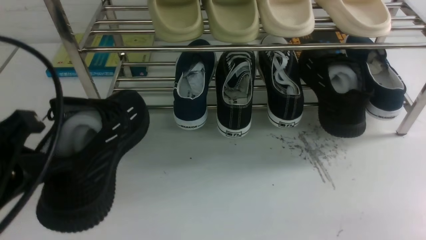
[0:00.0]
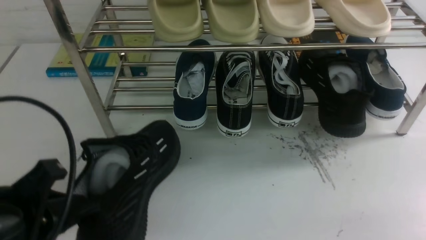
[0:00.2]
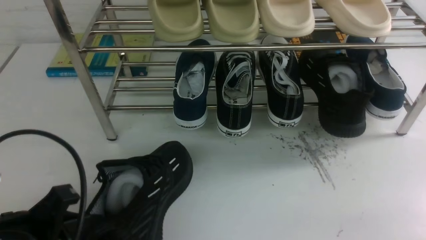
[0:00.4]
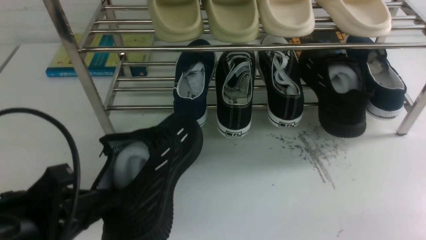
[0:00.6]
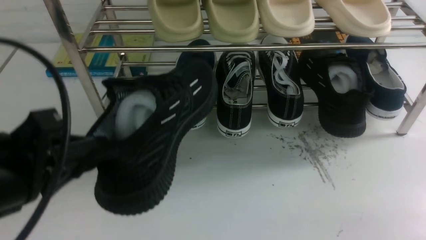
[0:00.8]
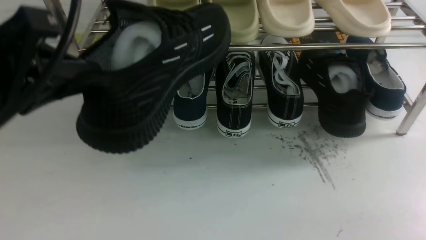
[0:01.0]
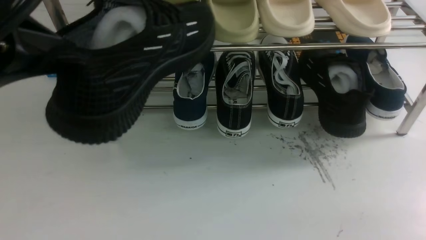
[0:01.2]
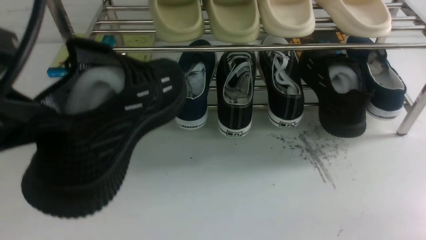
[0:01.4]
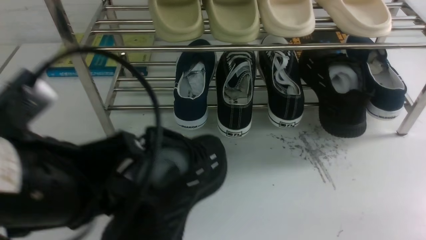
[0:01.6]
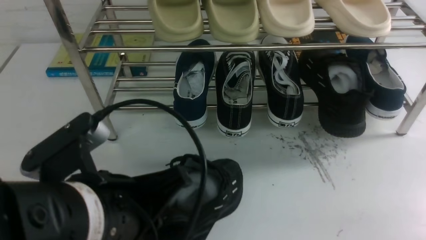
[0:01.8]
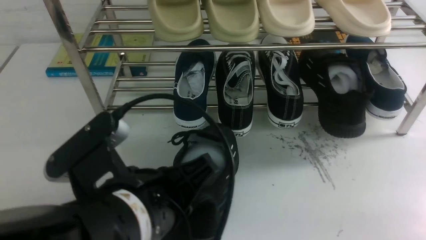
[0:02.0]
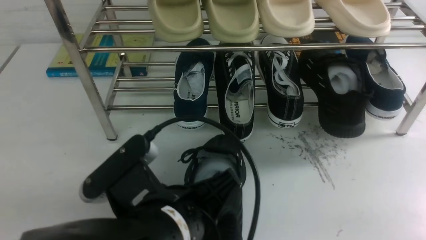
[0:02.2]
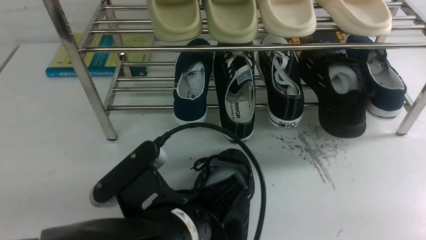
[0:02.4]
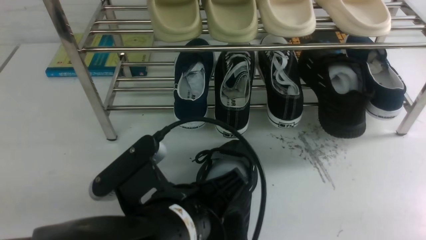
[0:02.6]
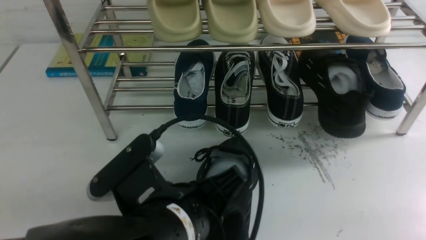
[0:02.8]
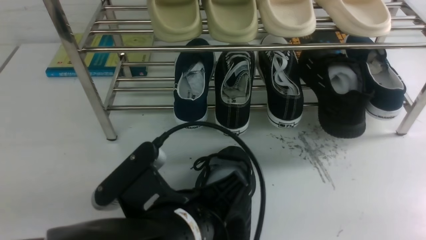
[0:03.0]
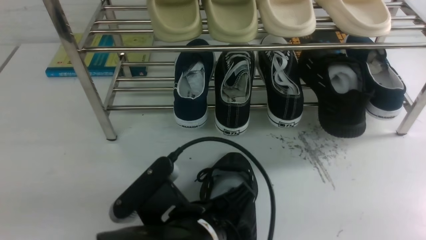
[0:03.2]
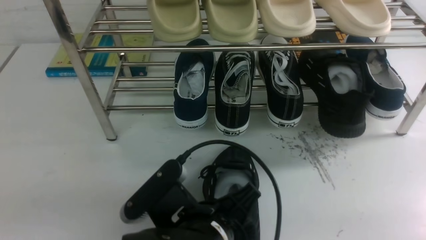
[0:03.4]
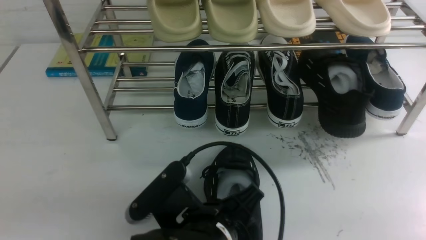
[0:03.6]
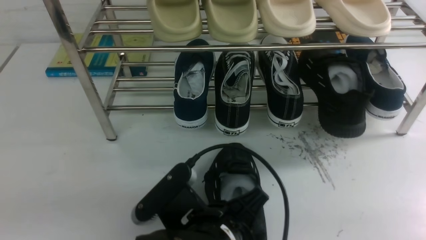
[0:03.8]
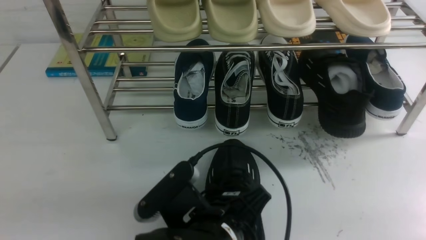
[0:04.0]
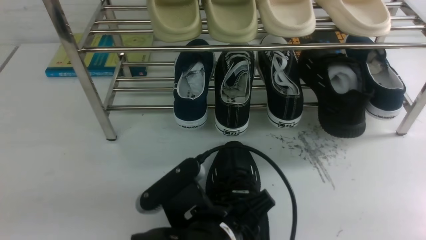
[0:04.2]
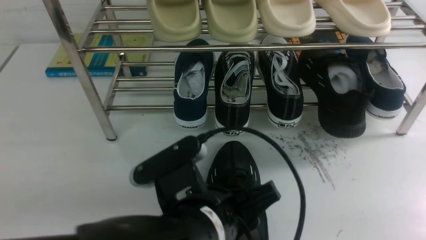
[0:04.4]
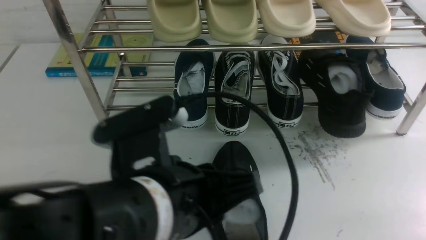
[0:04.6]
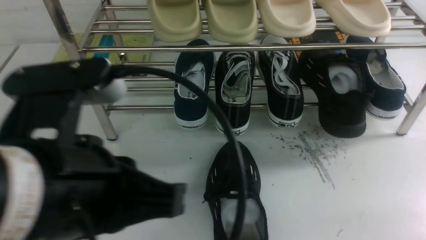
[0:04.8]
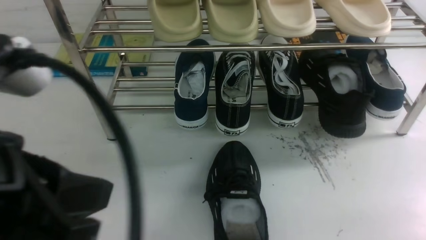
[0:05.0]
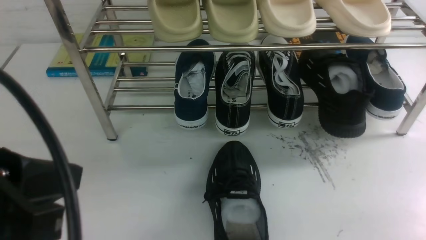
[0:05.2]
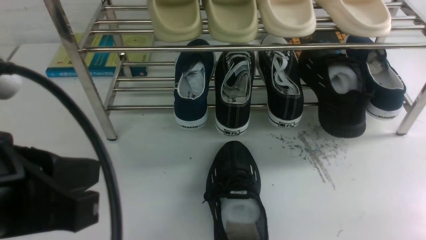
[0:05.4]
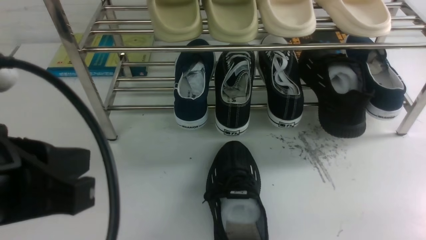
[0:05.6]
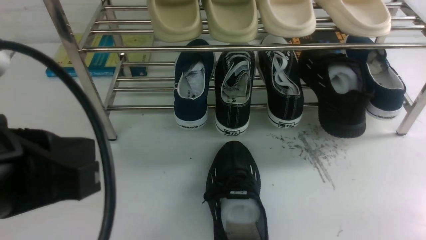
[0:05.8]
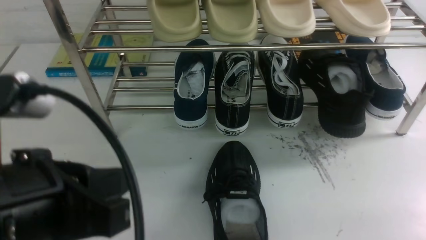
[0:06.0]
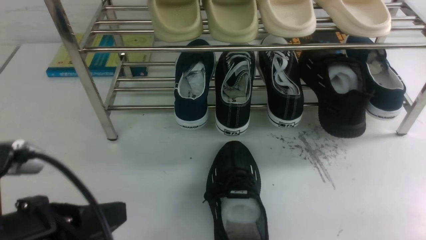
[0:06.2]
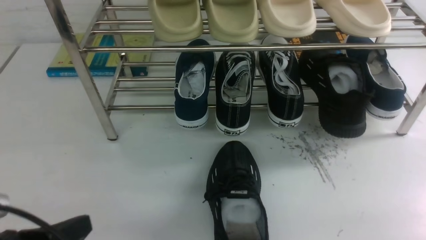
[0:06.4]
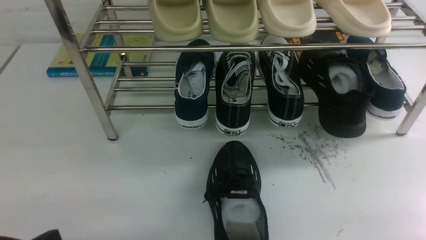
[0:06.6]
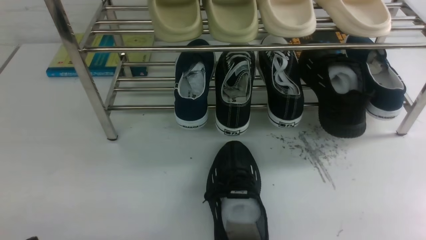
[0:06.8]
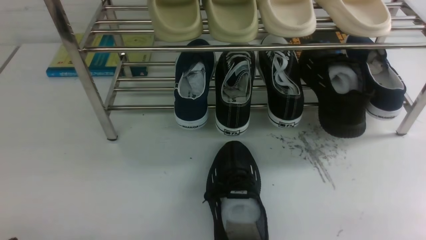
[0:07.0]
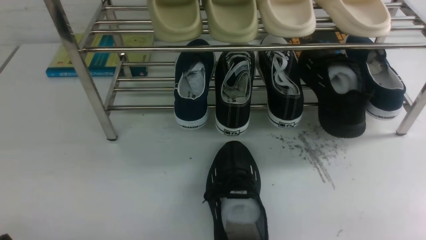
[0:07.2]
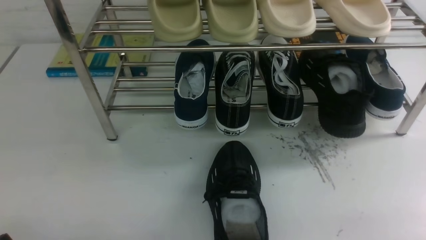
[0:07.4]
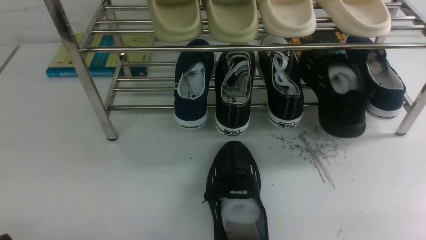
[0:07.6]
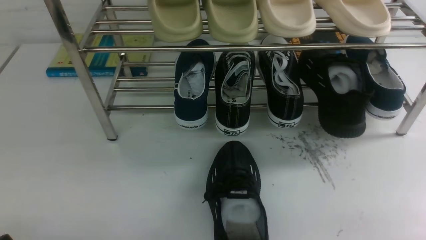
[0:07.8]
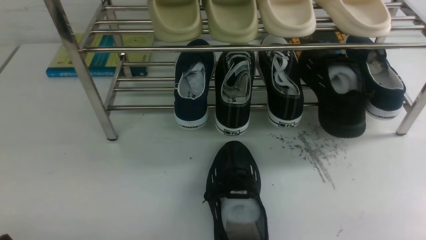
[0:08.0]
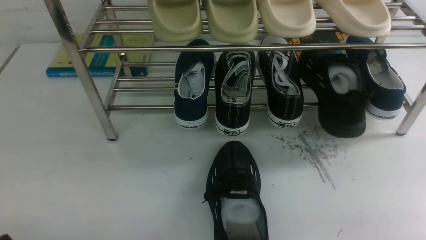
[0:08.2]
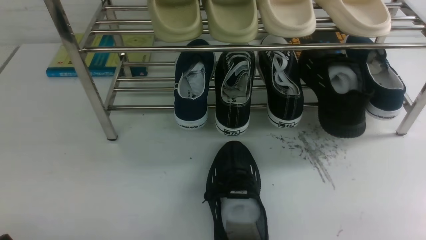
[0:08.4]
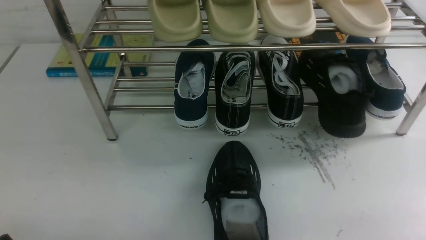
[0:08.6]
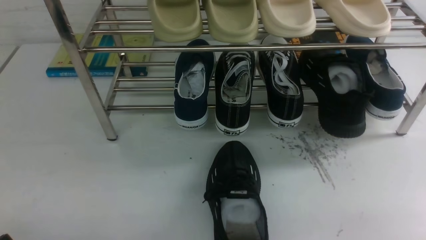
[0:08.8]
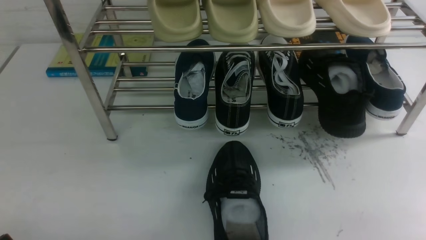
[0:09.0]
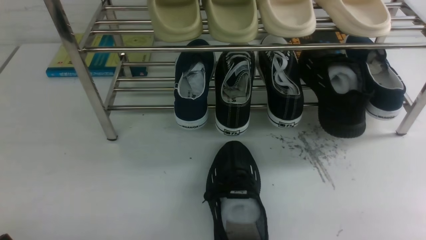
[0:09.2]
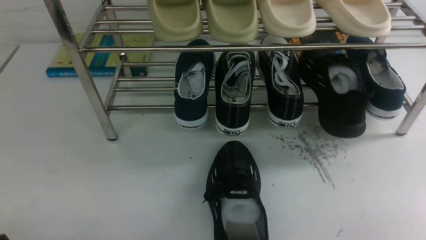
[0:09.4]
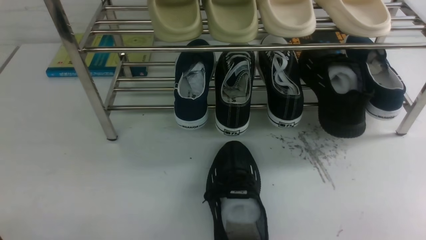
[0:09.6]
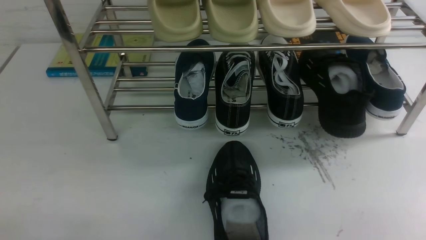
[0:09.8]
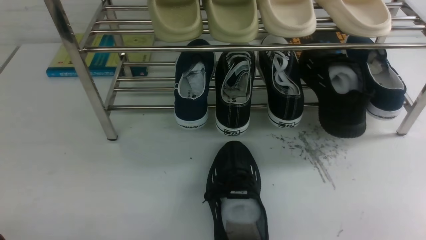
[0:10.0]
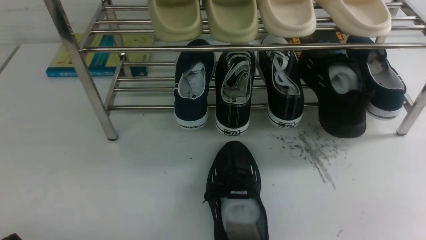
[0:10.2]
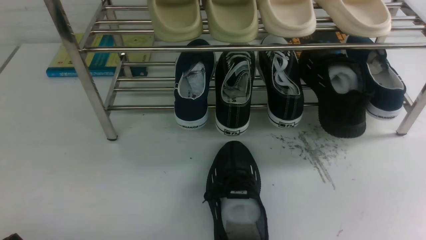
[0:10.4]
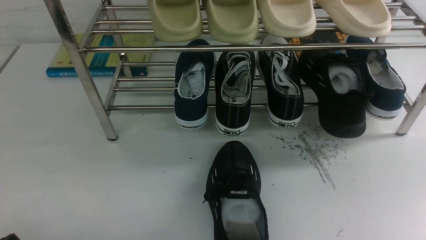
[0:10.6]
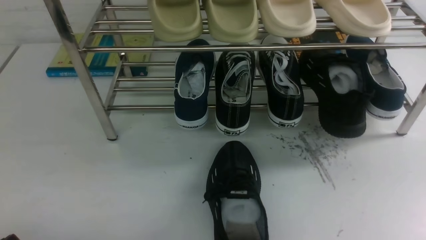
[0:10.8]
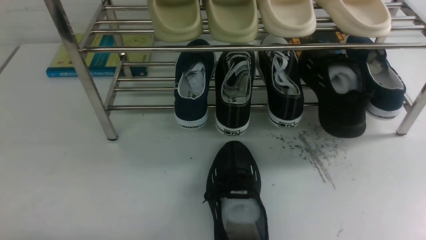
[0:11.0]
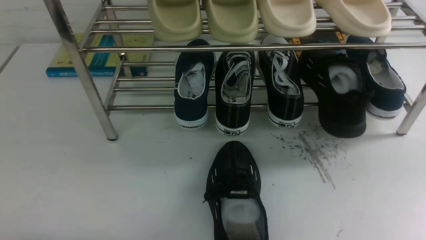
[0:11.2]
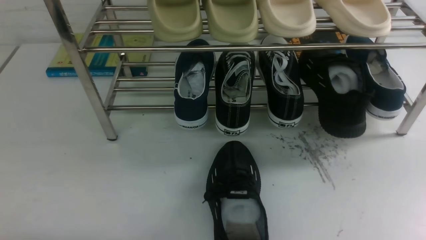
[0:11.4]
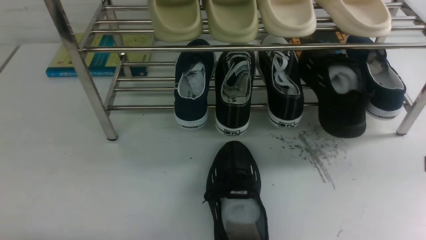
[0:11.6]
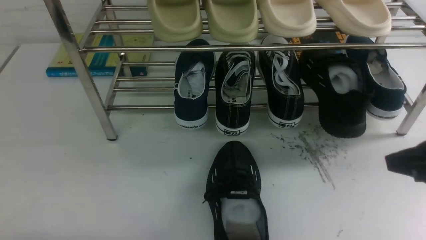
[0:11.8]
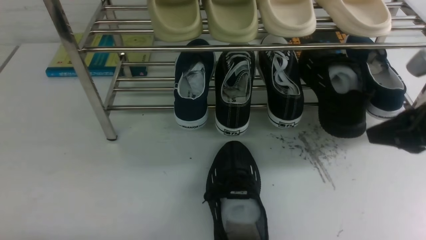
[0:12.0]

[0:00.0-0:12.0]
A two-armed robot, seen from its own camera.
Step, 0:00.0 to 0:04.4: Use your left arm to remove the clamped shoe from the shoe rack and put it down.
0:00.0 to 0:01.6: The left gripper swings up and down, about 15 cm each way, with 2 reversals.
0:01.6 to 0:03.0: The left gripper moves to the right and downward, about 15 cm.
0:03.0 to 0:04.4: The left gripper opens its fingers.
0:04.4 to 0:06.0: The left gripper goes about 15 cm to the left and upward, and closes up.
0:06.0 to 0:07.6: The left gripper shifts approximately 20 cm downward and to the left.
0:07.6 to 0:09.0: Neither gripper changes place.
0:10.4 to 0:12.0: The right gripper travels forward by some 15 cm.

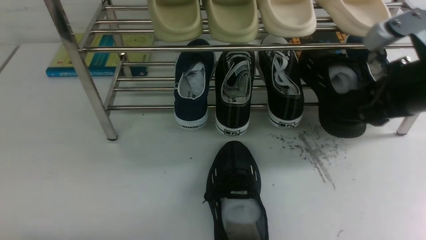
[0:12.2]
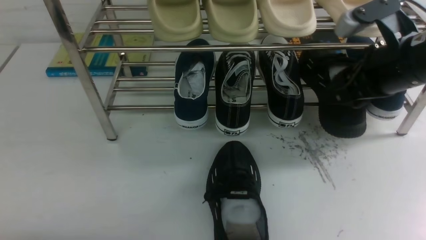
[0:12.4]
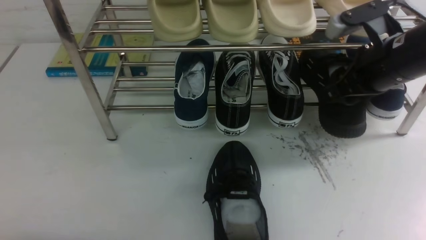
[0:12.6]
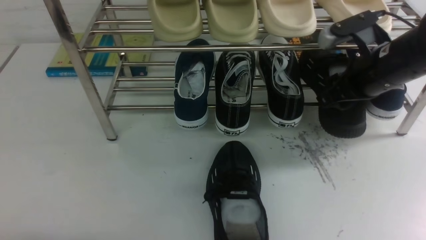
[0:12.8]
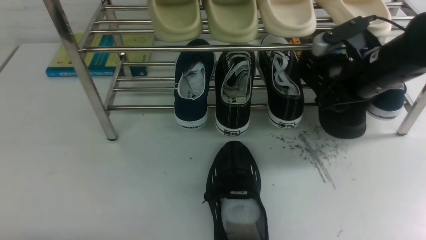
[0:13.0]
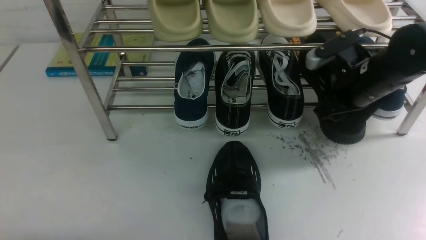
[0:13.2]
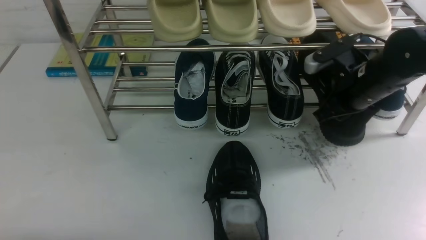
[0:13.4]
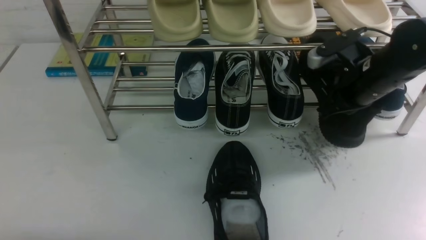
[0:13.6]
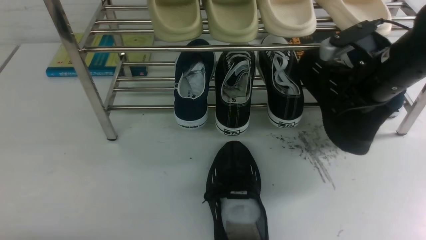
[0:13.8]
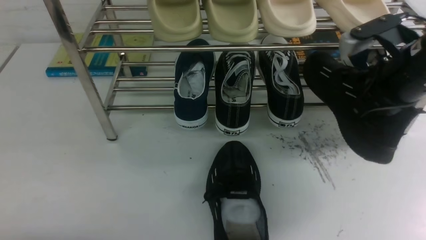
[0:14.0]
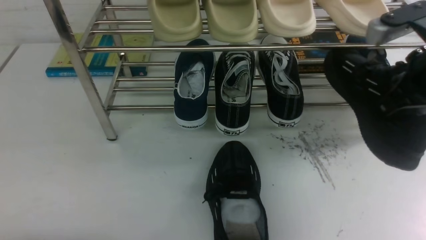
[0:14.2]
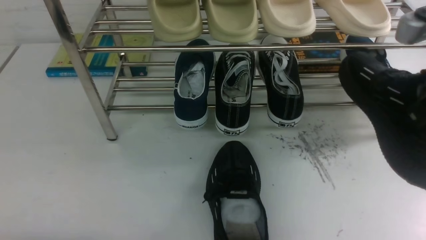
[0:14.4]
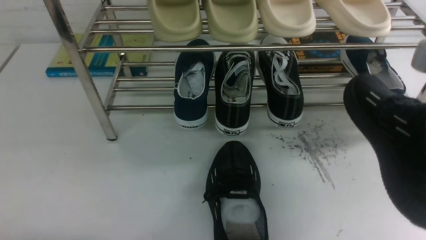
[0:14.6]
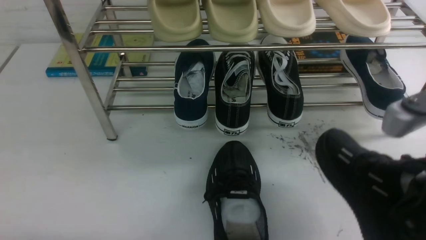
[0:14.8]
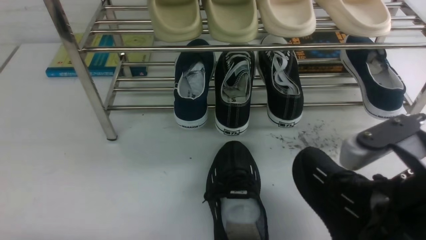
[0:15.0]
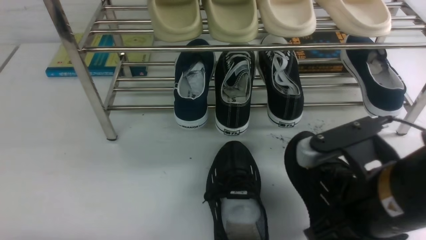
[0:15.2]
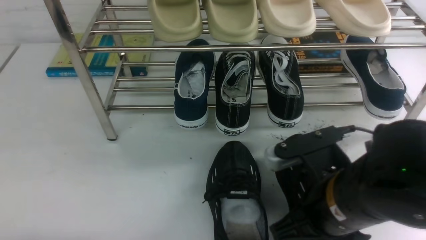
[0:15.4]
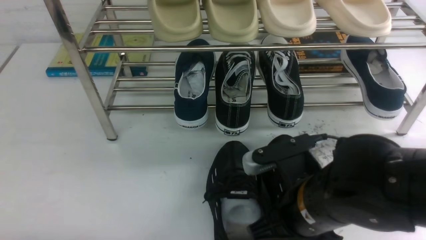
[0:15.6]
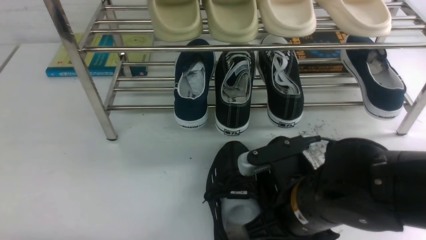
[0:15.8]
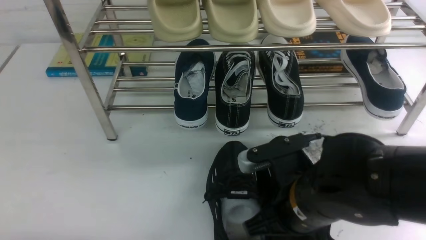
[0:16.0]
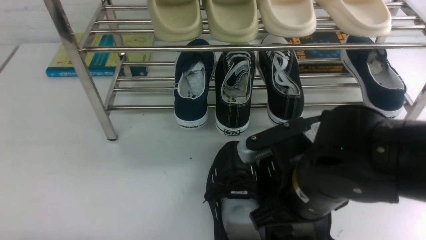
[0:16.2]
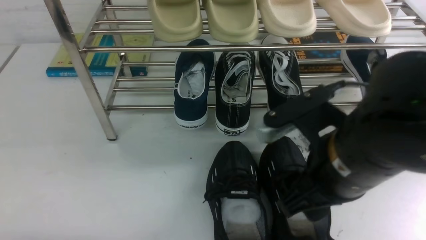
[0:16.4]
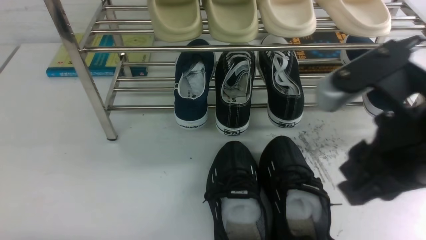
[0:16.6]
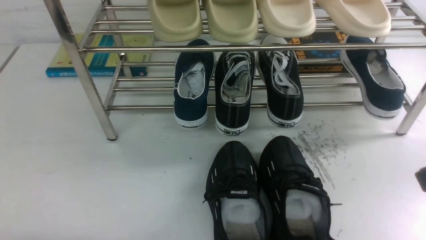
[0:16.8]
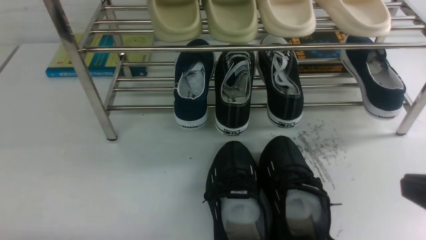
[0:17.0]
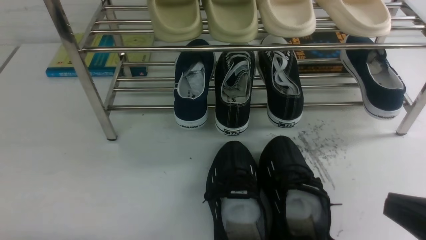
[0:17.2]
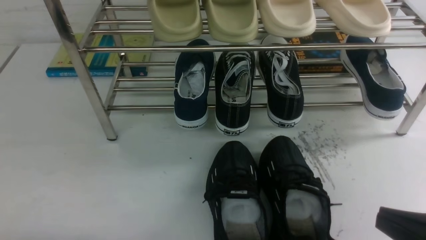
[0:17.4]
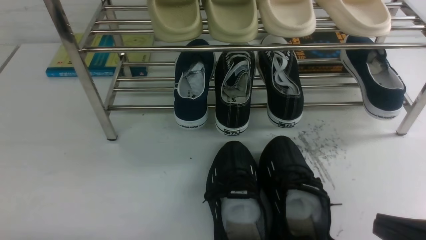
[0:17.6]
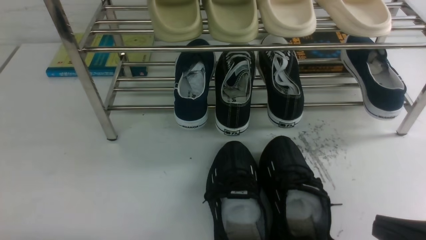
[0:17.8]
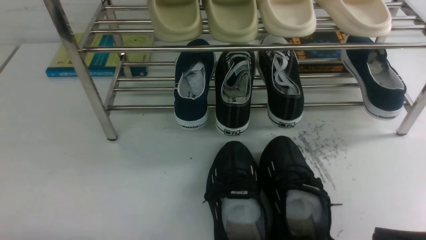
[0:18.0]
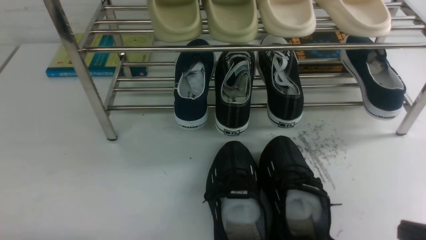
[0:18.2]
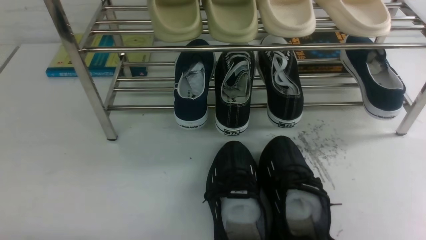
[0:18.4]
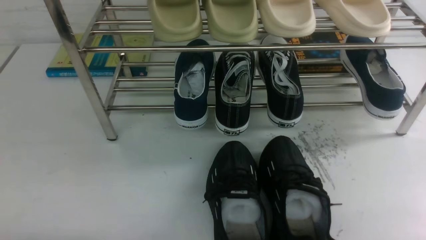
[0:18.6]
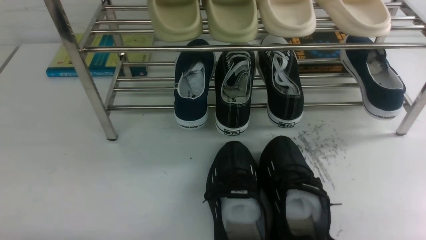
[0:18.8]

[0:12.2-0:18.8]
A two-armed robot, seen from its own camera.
Step, 0:14.0 to 0:16.4: use the right arm to take out the clamped shoe from the shoe rack and put it down.
0:12.2 to 0:13.8: The right gripper goes approximately 5 cm forward, and closes its fingers.
0:13.8 to 0:15.4: The right gripper travels backward and to the left by approximately 20 cm.
0:15.4 to 0:17.2: The right gripper shifts some 15 cm to the right and backward, and opens, then closes again.
0:17.2 to 0:18.8: The right gripper goes some 15 cm downward and to the right.
